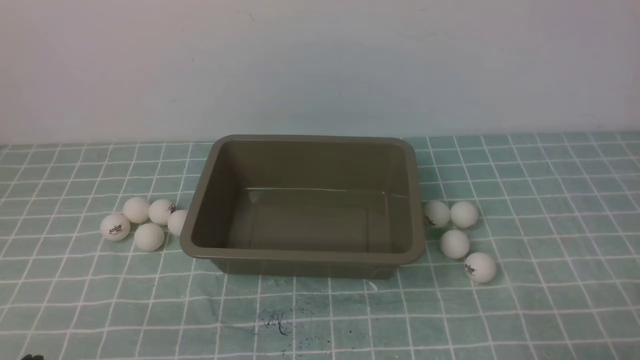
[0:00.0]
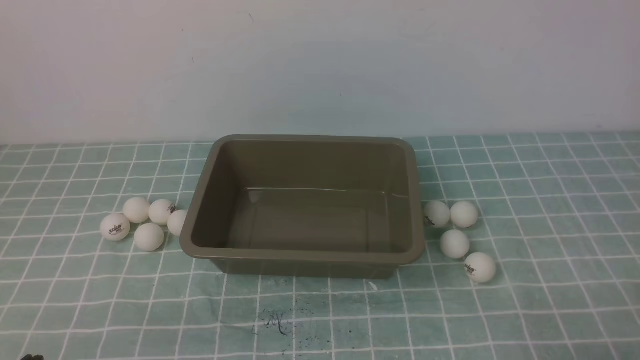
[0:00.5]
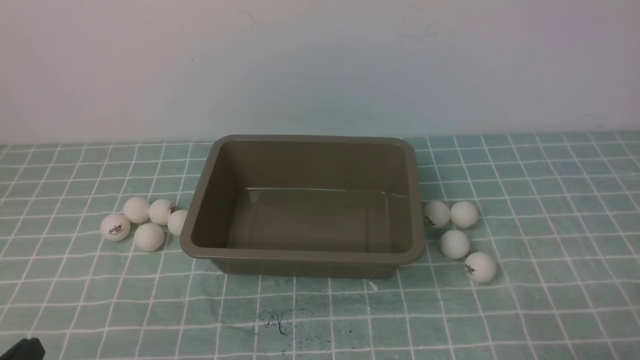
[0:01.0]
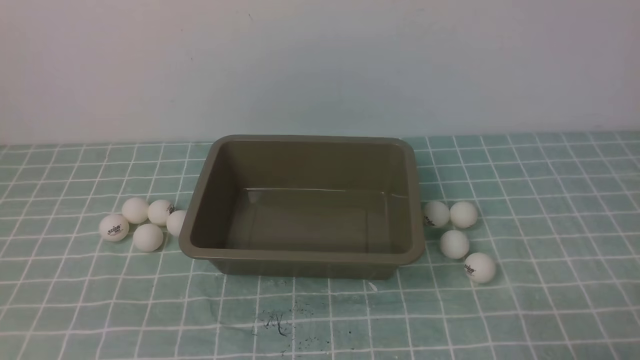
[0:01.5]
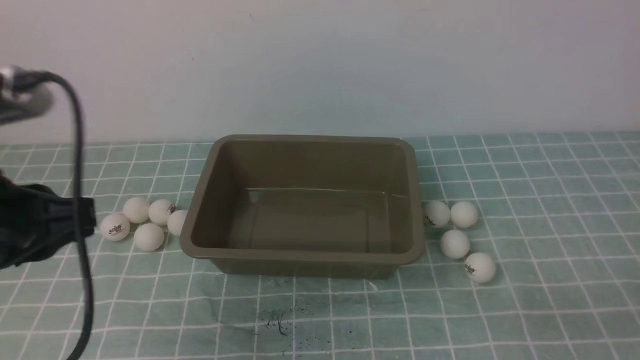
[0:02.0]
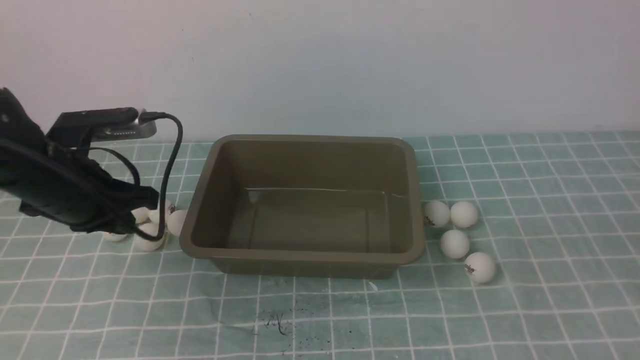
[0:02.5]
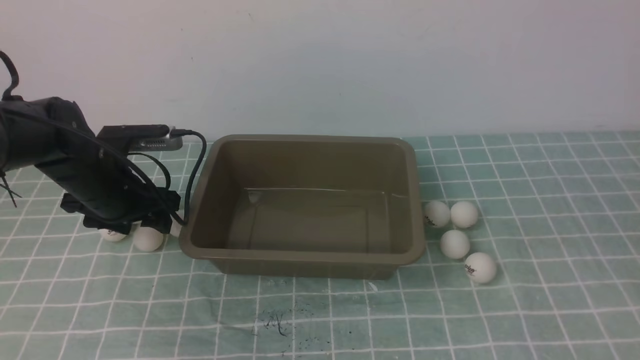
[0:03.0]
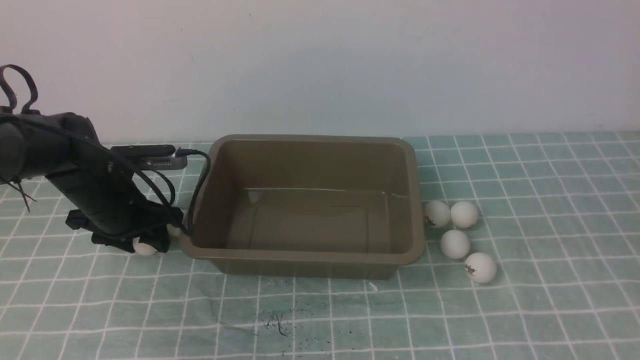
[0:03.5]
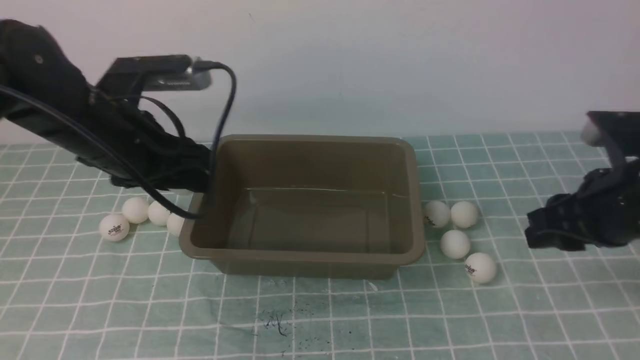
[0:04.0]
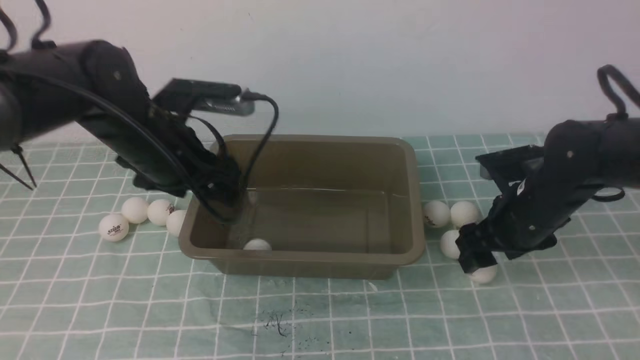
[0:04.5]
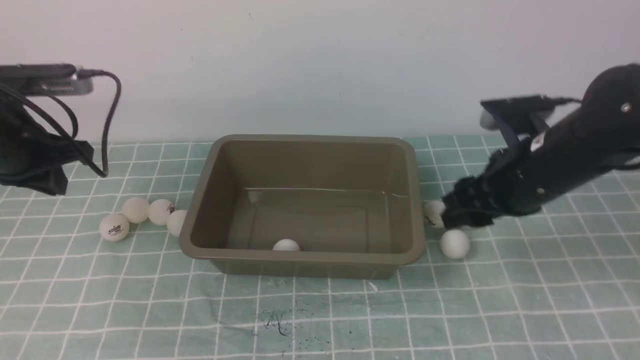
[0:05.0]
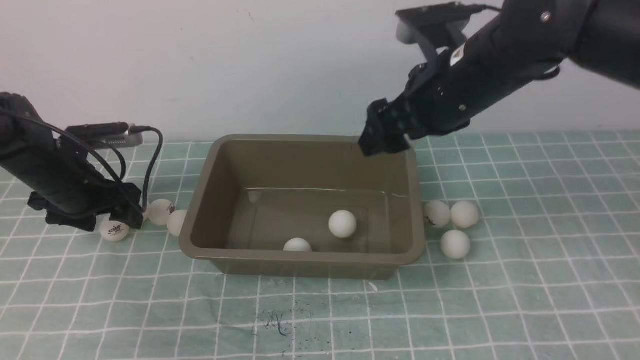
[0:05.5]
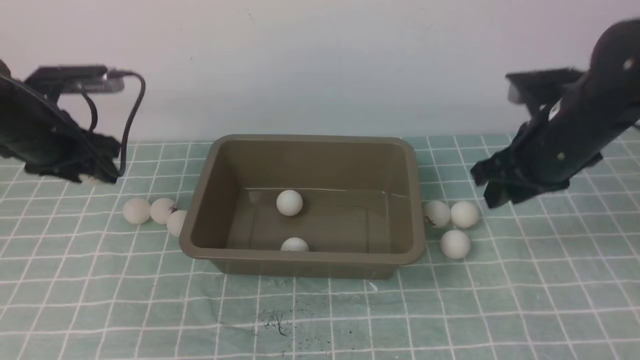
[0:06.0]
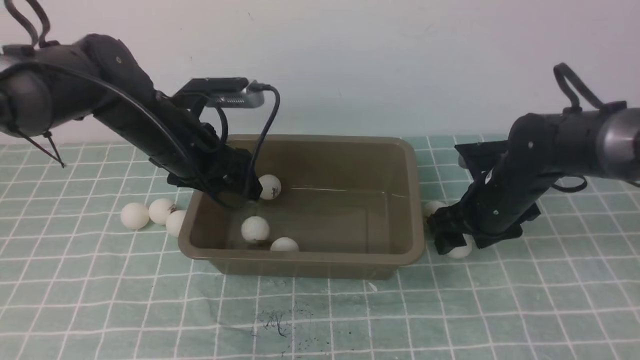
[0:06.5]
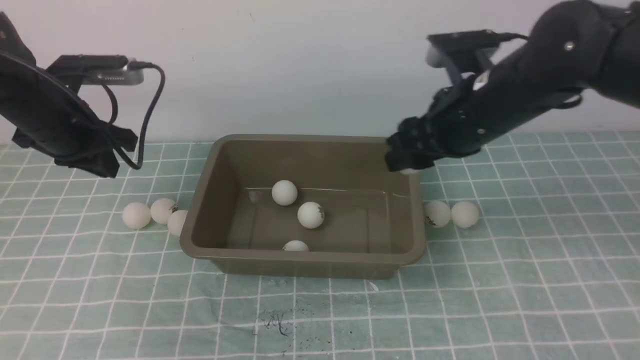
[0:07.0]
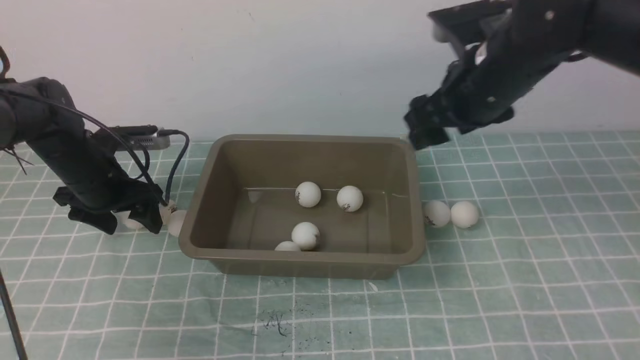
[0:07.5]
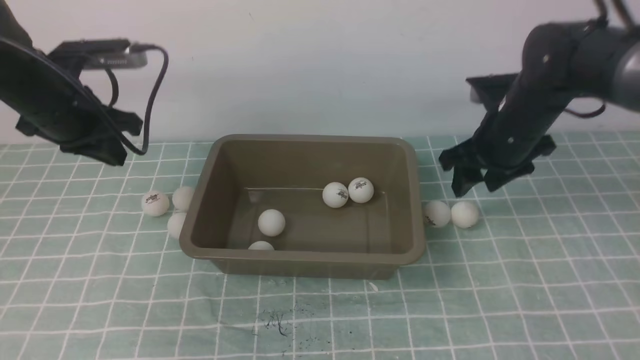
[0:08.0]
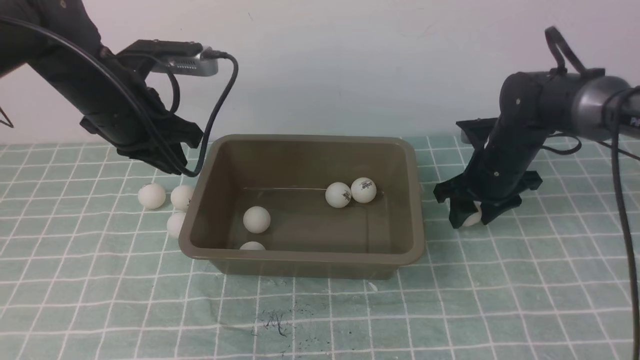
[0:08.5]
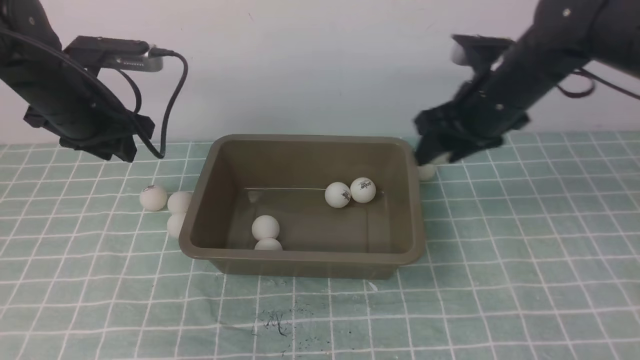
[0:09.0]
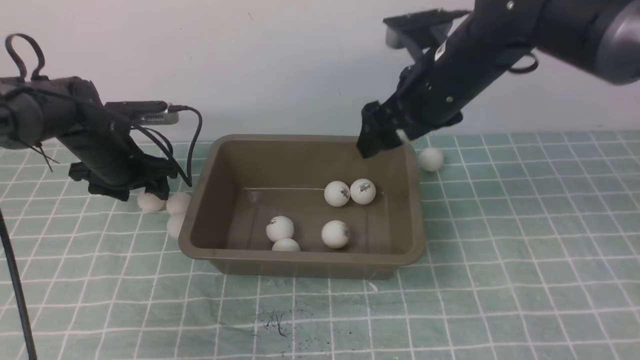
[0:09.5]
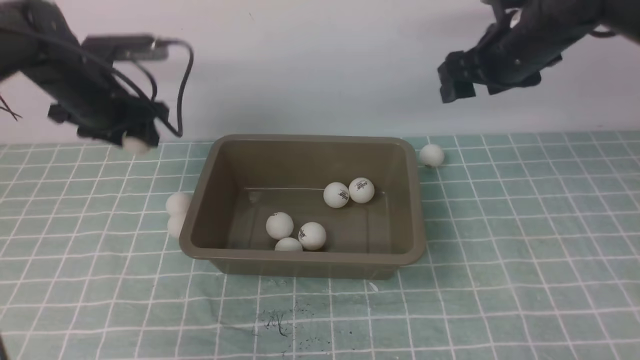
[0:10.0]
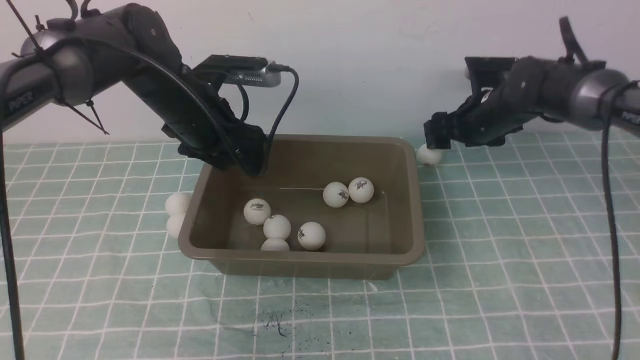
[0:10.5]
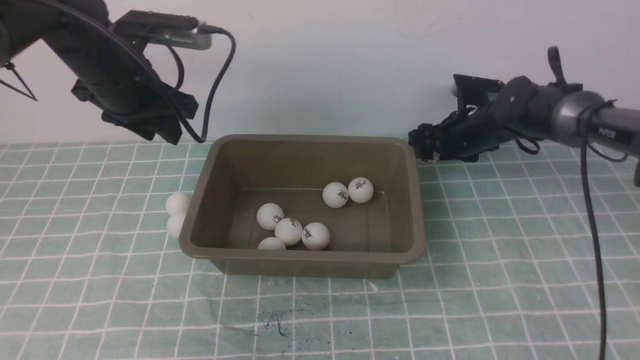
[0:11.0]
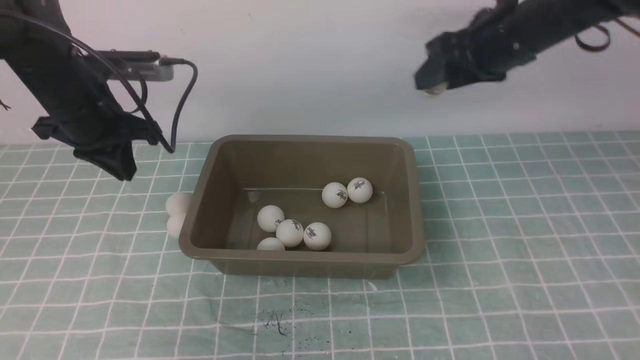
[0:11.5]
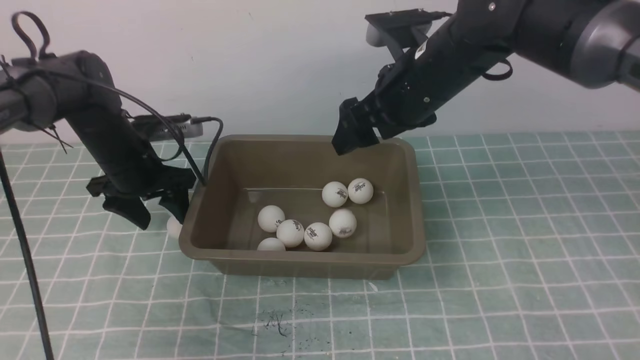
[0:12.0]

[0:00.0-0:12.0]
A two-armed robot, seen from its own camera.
Step, 0:00.0 to 0:03.5: use the left arm to clamp the table tennis ball closest to it.
Step, 0:04.5 to 0:05.0: use the right arm to clamp the table tennis ball closest to it.
Step, 0:08.0 to 0:08.5: use the right arm to clamp the table tennis ball closest to it.
Step, 0:09.0 to 0:09.5: use the right arm to put the table tennis ball into the box.
Step, 0:10.0 to 0:10.5: use the left arm to put the table tennis ball into the box.
Step, 0:11.0 to 0:11.5: use the right arm to clamp the table tennis ball closest to it.
0:00.0 to 0:02.0: The left gripper moves upward and forward, about 20 cm.
0:02.0 to 0:04.0: The two grippers go about 20 cm forward. The left gripper opens its fingers. The right gripper opens.
0:04.0 to 0:06.0: The right gripper swings up and down, approximately 15 cm each way, with 2 reversals. The left gripper heads to the left and forward, covering approximately 10 cm, and closes and opens again.
0:06.0 to 0:08.0: The left gripper goes to the right and returns, approximately 10 cm each way, and closes up. Meanwhile the right gripper moves up and down over some 15 cm, changing direction 2 times.
0:08.0 to 0:10.0: The left gripper reaches approximately 10 cm downward, then returns, and opens. Meanwhile the right gripper heads upward, covering roughly 5 cm.
0:10.0 to 0:12.0: The left gripper shifts approximately 10 cm downward, and closes and opens again. The right gripper is displaced to the left and backward by roughly 10 cm, and reaches about 15 cm downward, then returns.

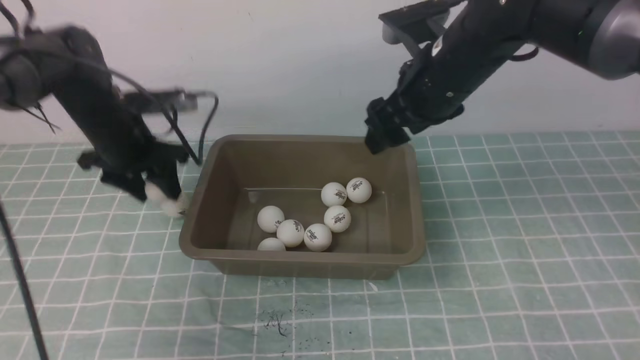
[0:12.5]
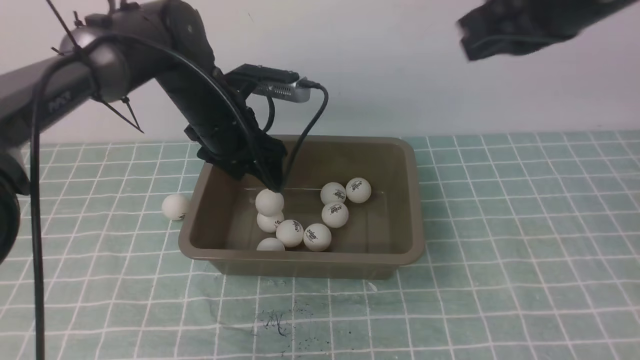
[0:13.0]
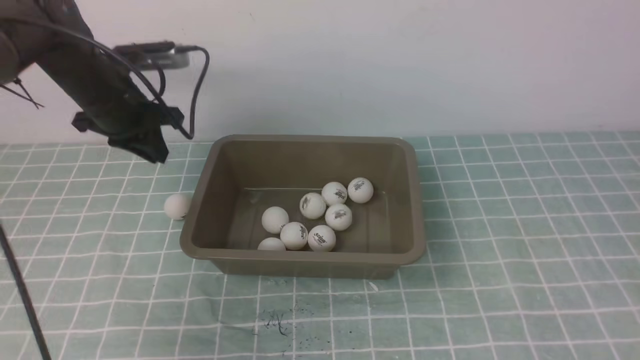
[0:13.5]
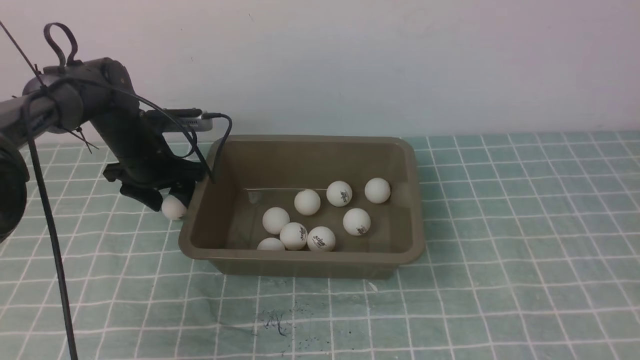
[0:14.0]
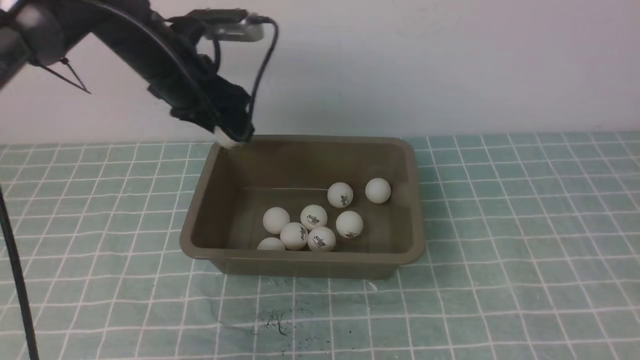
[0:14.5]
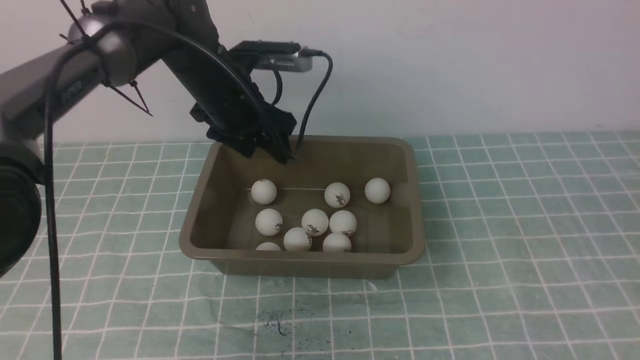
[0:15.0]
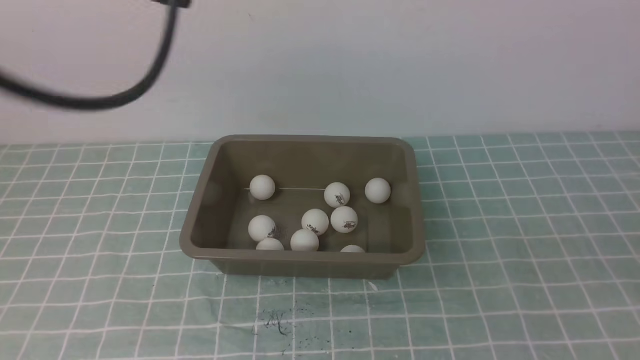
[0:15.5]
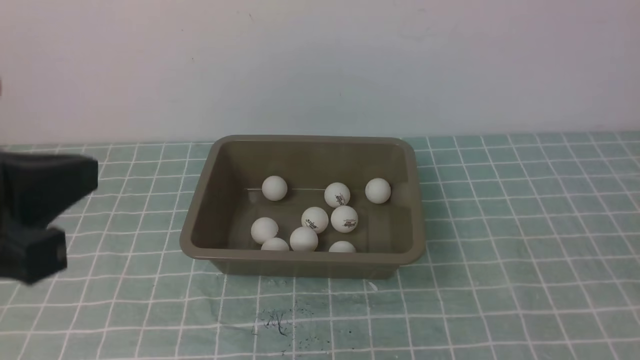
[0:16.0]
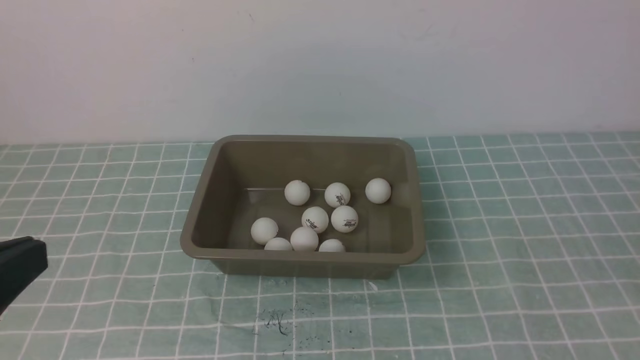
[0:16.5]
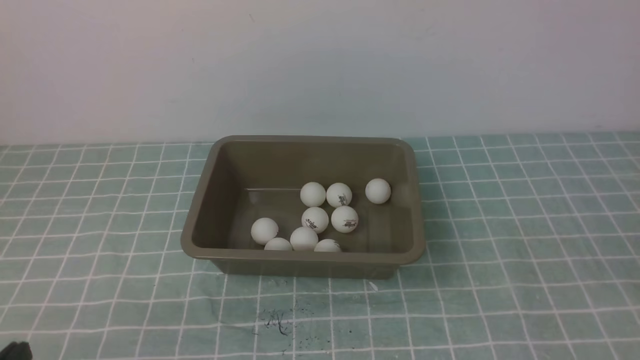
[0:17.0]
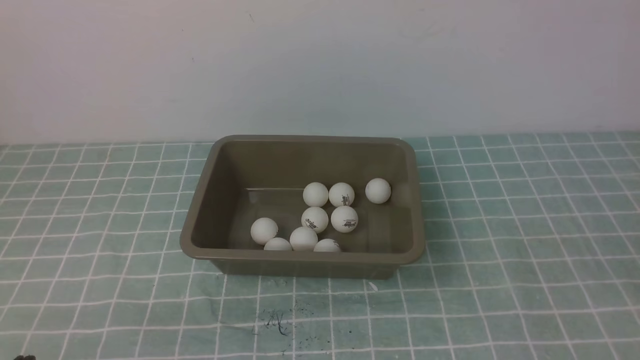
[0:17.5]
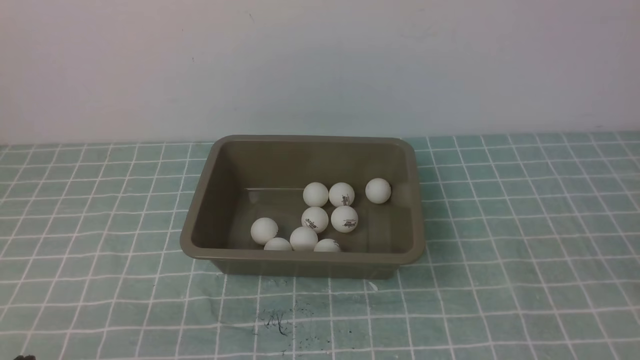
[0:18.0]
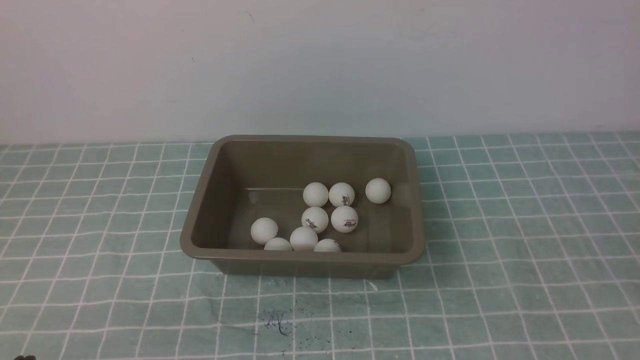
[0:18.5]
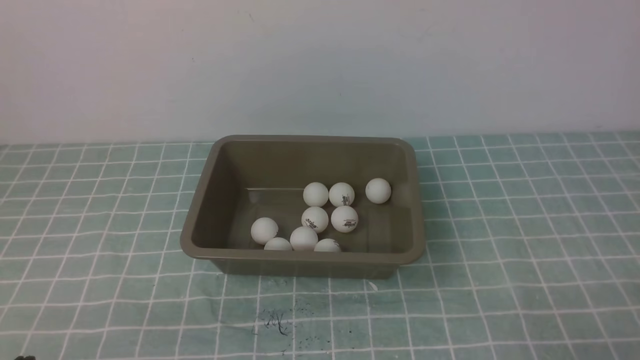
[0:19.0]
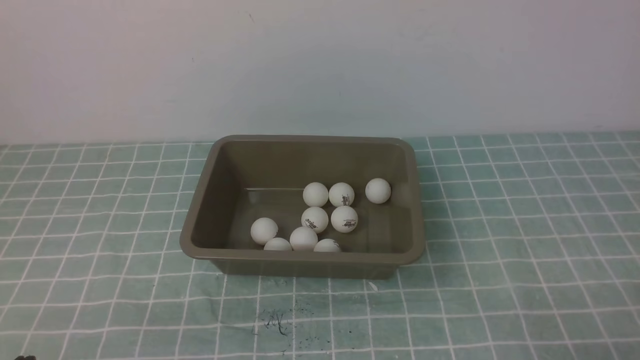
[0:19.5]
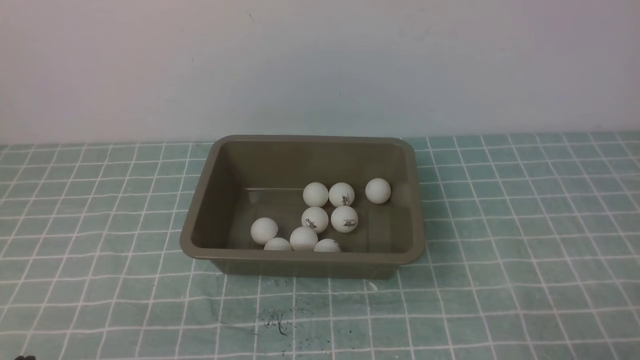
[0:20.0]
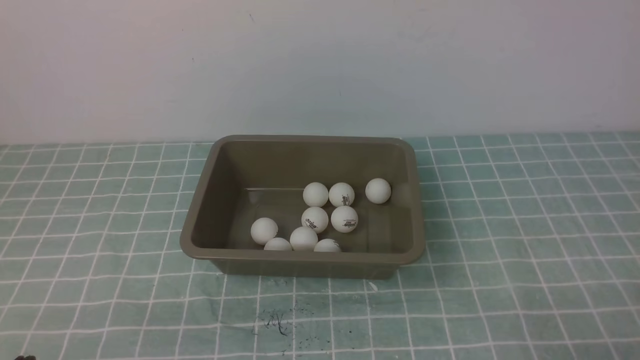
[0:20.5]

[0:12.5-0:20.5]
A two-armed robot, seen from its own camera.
Step, 0:13.5 to 0:14.0: use the left arm to clamp the table tennis ball closest to it.
Step, 0:14.5 to 0:15.0: use the left arm to put the table tennis ball into the box.
0:12.5 to 0:14.5: The right gripper is displaced backward and to the right by roughly 35 cm, and closes. The left gripper swings left and right, about 10 cm each way, with 2 reversals, and closes and opens again.
0:14.5 to 0:16.5: The left gripper travels backward by some 40 cm, and closes up, while the right gripper is displaced backward, downward and to the right by some 15 cm.
0:16.5 to 0:18.5: The left gripper shifts approximately 15 cm downward.
